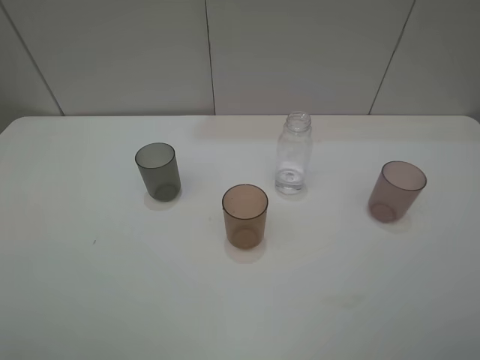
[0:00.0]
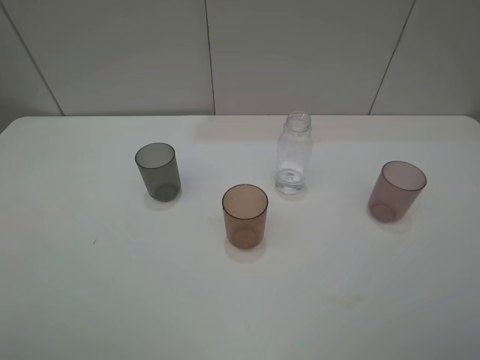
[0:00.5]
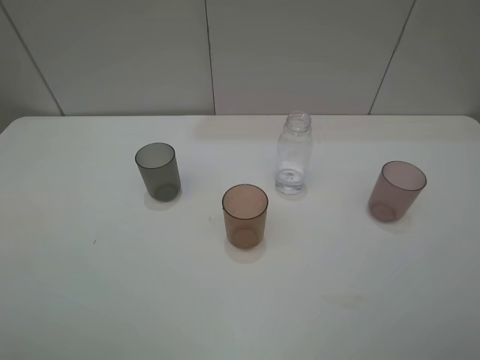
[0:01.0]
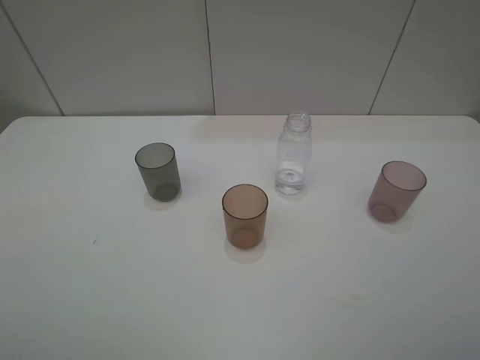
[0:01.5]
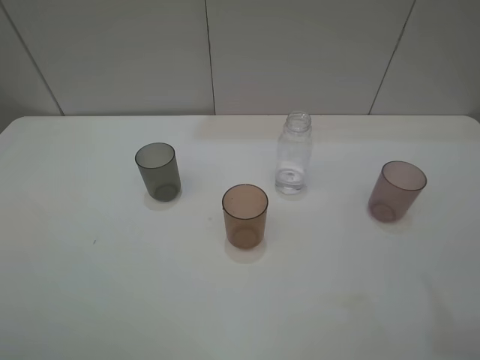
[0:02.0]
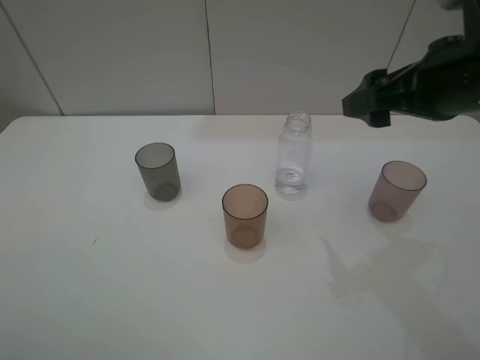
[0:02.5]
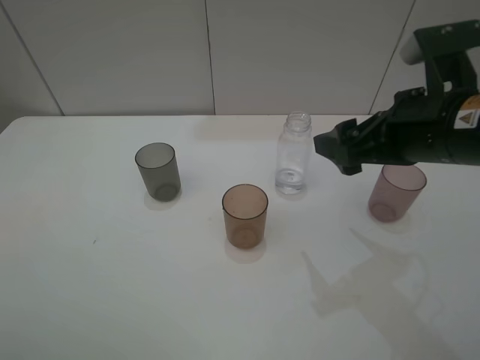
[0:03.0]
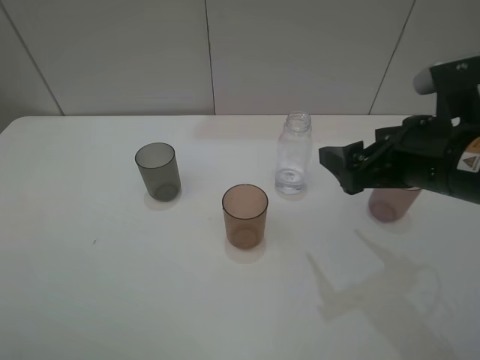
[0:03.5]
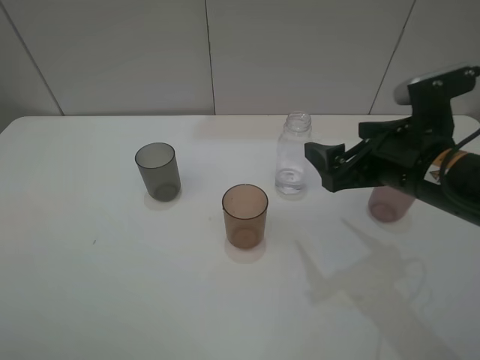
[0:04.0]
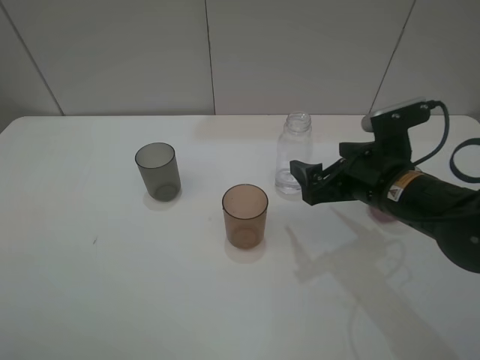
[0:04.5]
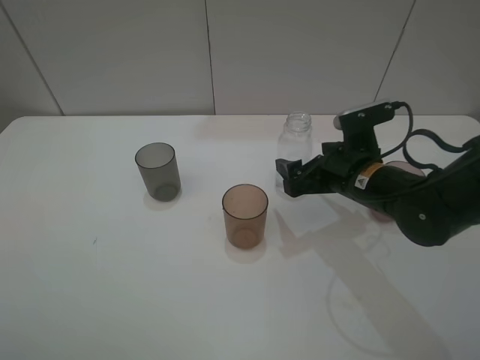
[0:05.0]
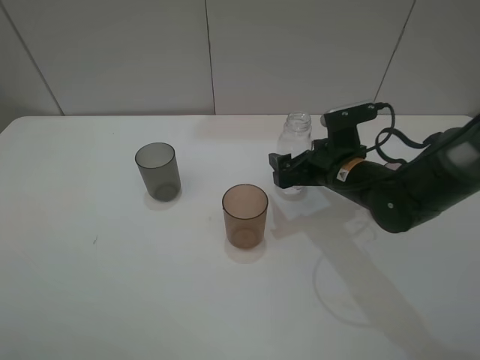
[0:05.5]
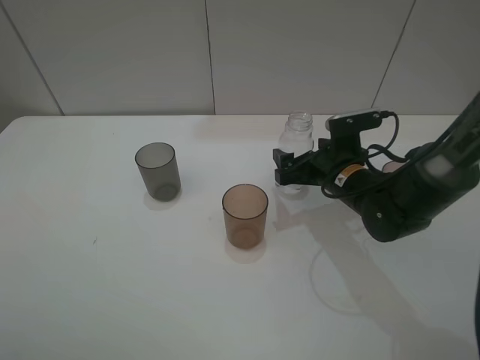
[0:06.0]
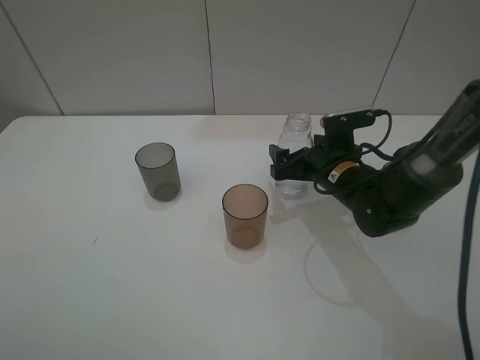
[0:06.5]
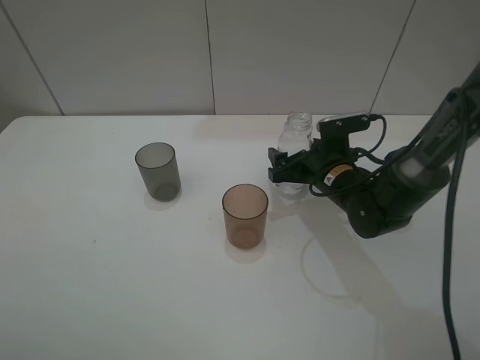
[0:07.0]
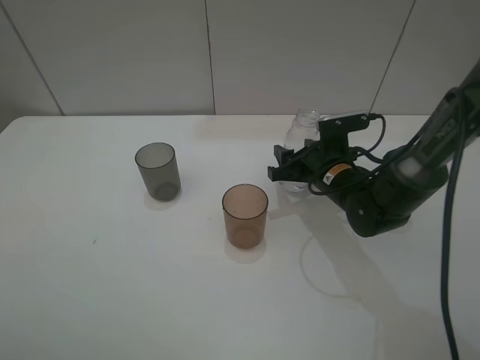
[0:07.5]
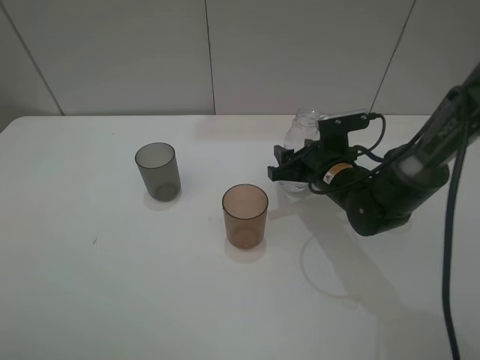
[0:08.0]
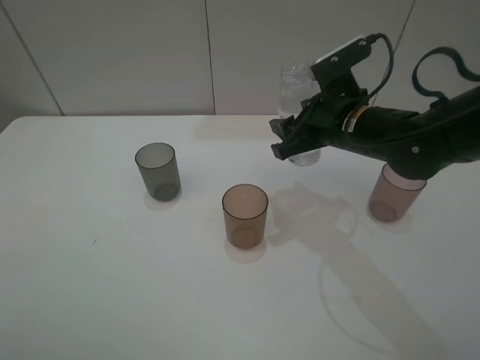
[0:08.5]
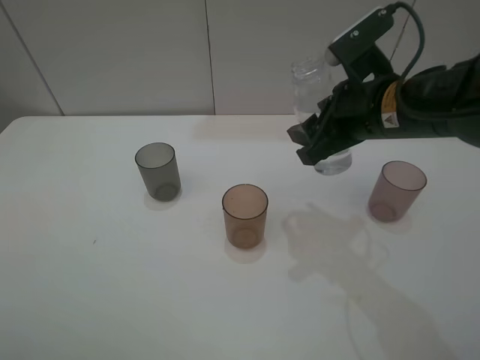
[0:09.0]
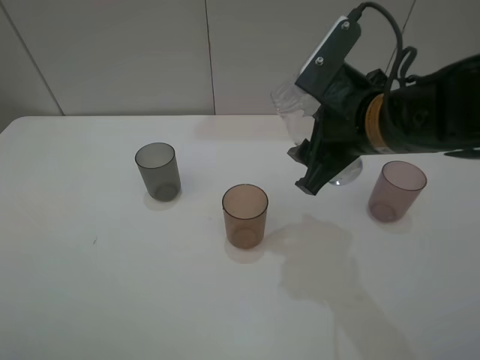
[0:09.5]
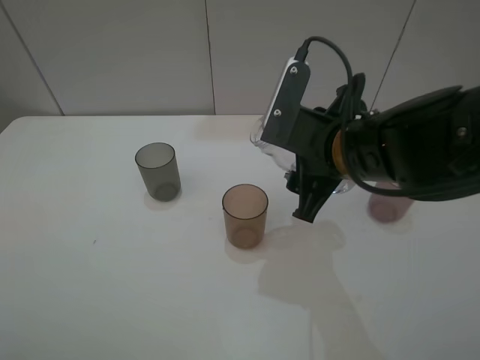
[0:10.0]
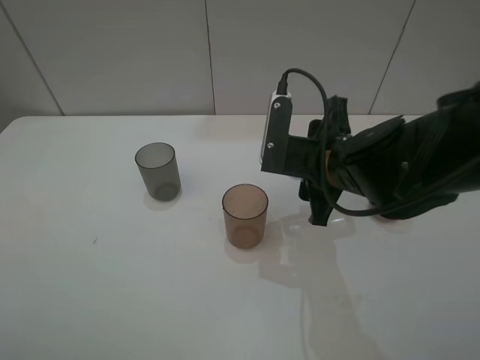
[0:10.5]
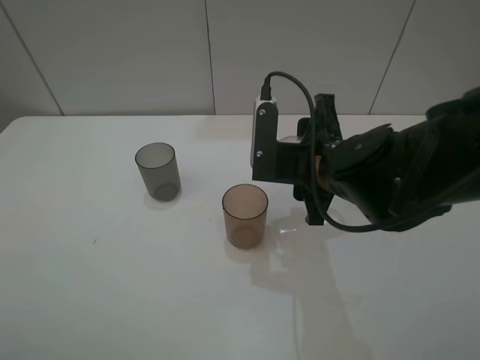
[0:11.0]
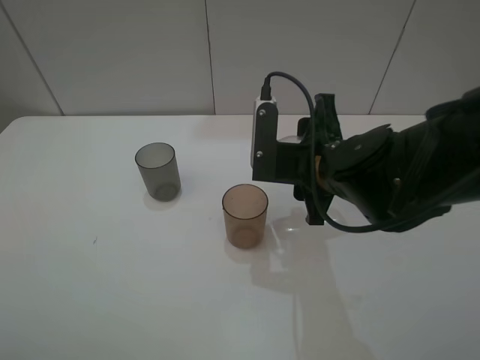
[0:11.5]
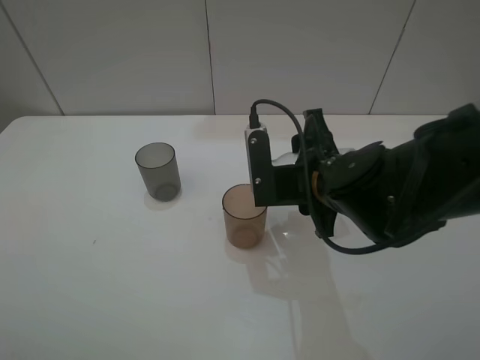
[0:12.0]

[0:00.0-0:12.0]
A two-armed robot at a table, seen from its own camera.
Task of the whole recording: pick up the bottle filled with water and pour water into the middle cup of the three cups.
Step, 0:00.0 to 0:07.5: Grasp the transparent bottle with the right gripper.
0:02.0 to 0:04.0: The right gripper goes some 20 cm downward, to the left and forward.
0:04.0 to 0:06.0: The right gripper shifts some 15 cm downward and forward.
0:06.0 to 0:08.0: The right gripper closes.
0:08.0 to 0:10.0: The right gripper travels upward and backward by roughly 15 cm.

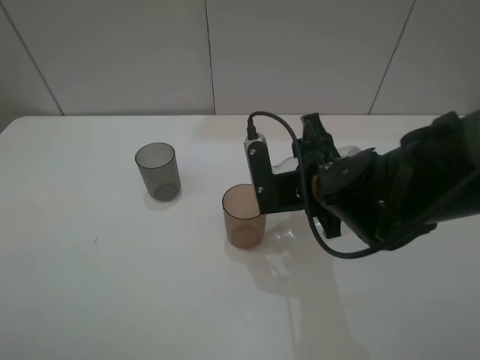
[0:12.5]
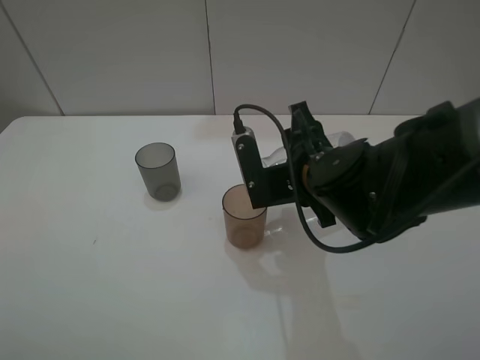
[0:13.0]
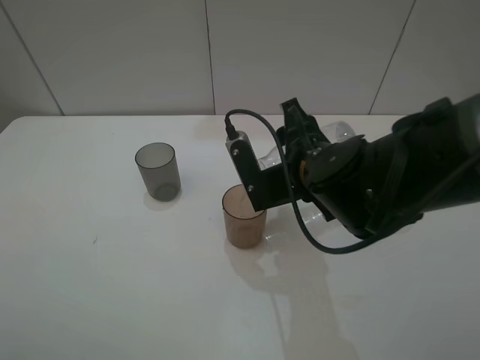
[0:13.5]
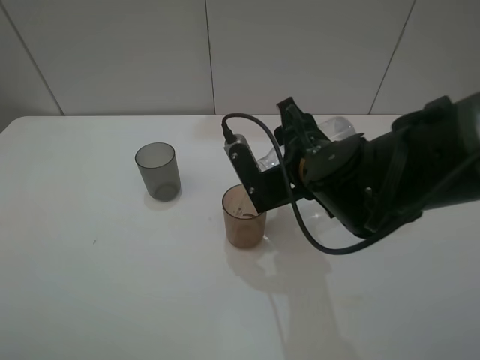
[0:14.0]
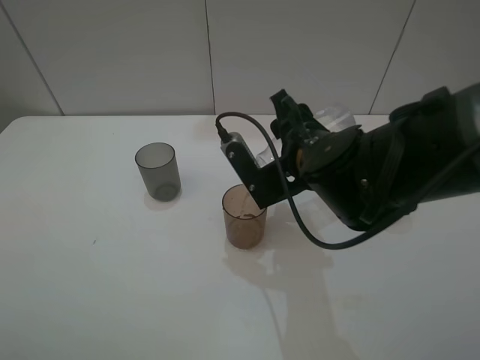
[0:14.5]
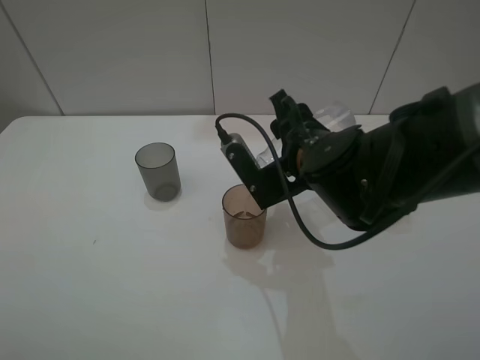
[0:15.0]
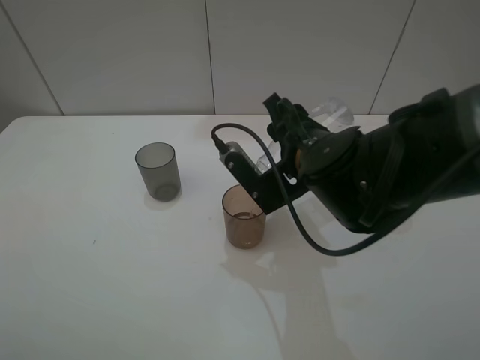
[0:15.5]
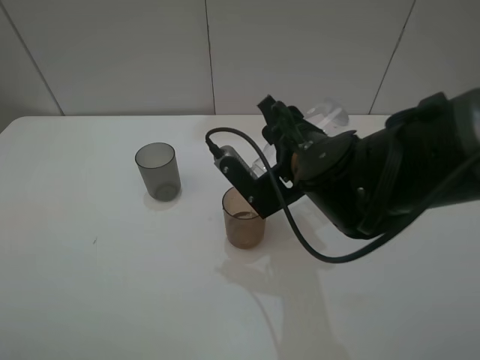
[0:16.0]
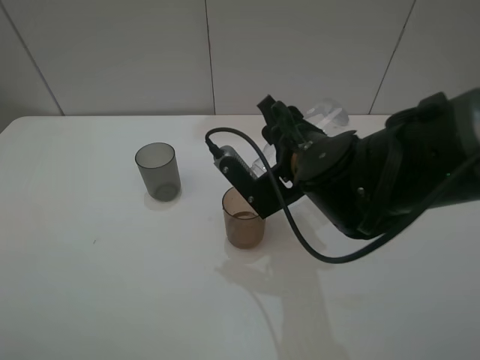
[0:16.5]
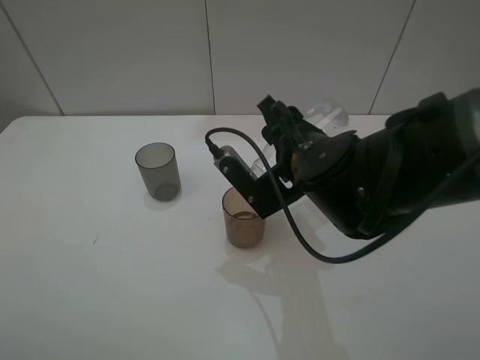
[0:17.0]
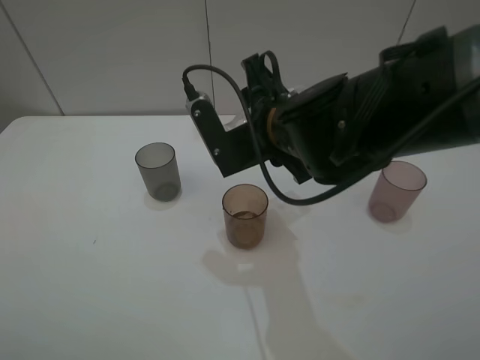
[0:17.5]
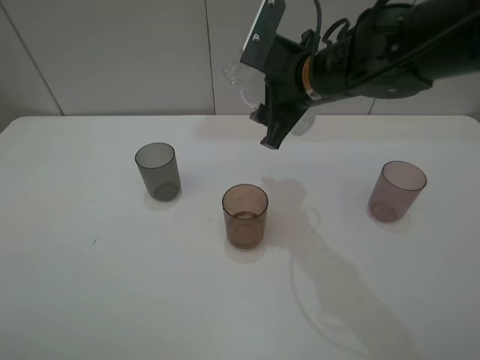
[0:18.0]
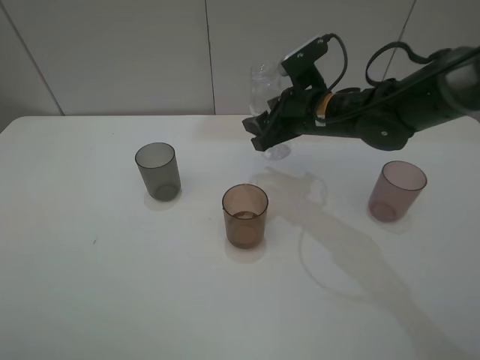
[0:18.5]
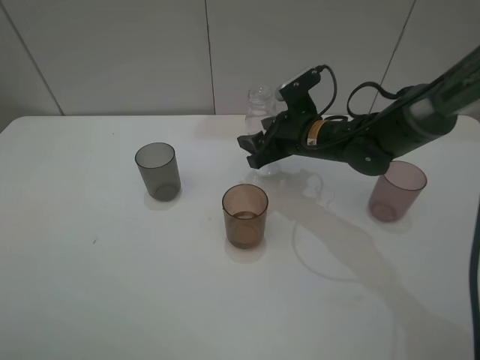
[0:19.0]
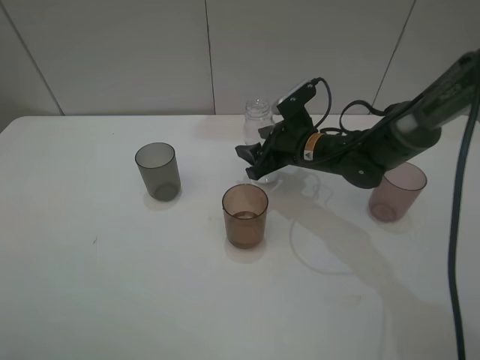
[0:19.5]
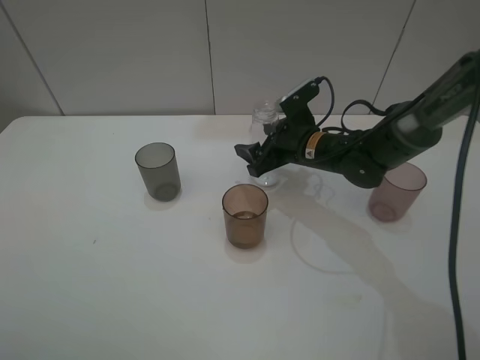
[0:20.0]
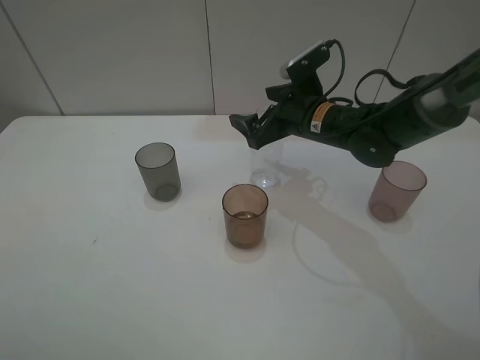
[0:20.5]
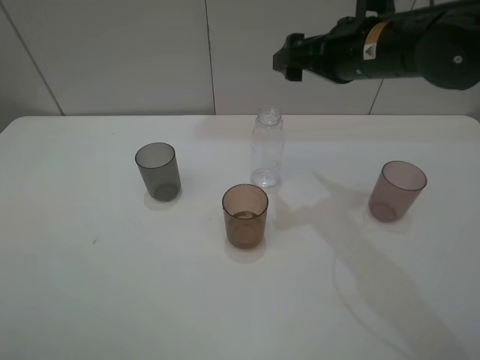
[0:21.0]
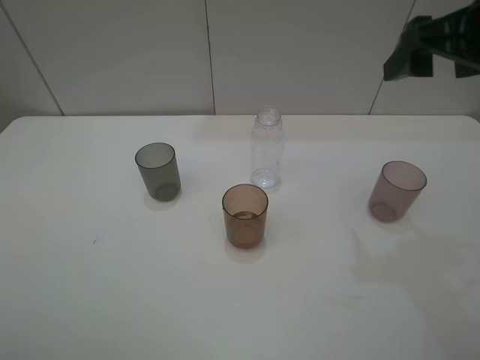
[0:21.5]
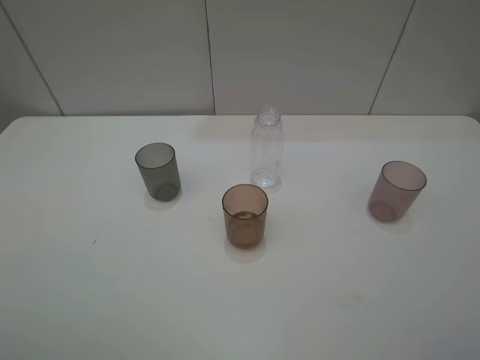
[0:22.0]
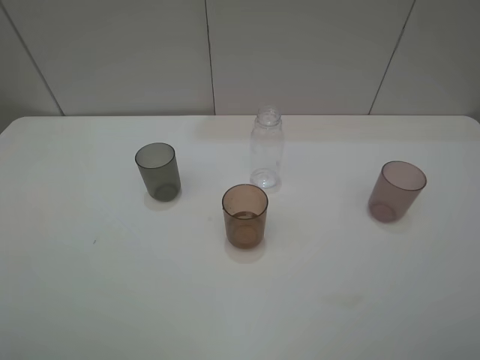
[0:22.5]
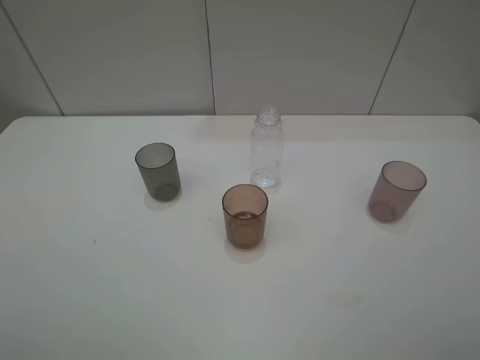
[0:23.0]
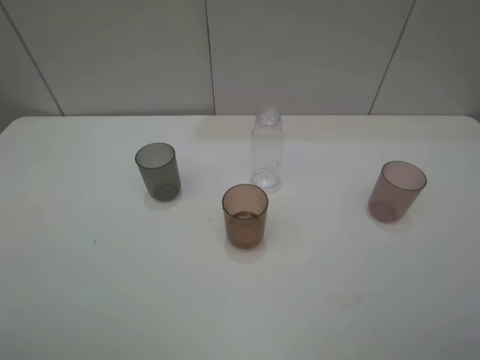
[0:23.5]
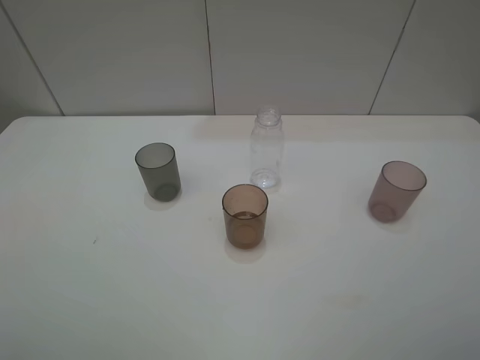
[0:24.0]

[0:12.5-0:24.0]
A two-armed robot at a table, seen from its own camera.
Task of the whole recording: pick up the bottle filled with water and pour water into the middle cup of the three cups.
Step, 0:12.5 to 0:17.5: Pour water from transparent bottle tobrown cup with the right gripper.
Step, 0:18.0 to 0:21.5: Place the transparent bottle with the right gripper.
0:14.5 to 0:16.5: The grippers make only small movements.
0:16.5 to 0:18.5: The right gripper goes approximately 10 cm forward.
0:18.5 to 0:20.0: The right gripper heads downward, covering approximately 5 cm, and opens up.
0:20.0 to 0:22.0: The right gripper is displaced upward, backward and to the right by some 50 cm, and opens up.
